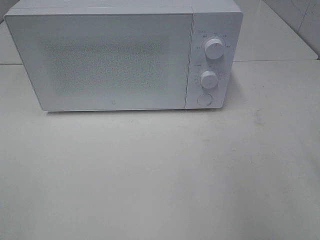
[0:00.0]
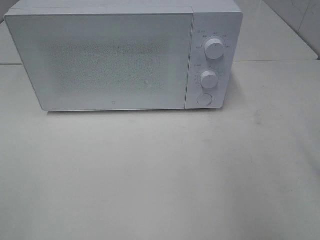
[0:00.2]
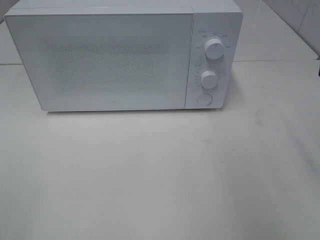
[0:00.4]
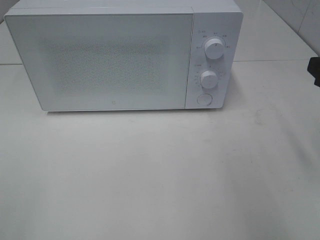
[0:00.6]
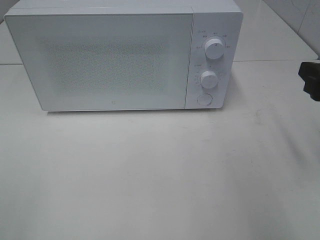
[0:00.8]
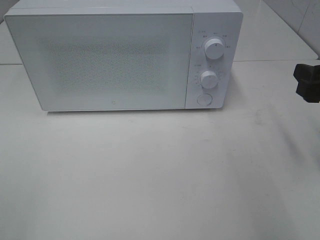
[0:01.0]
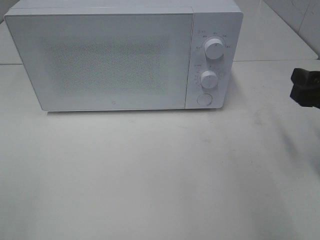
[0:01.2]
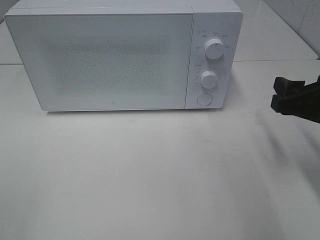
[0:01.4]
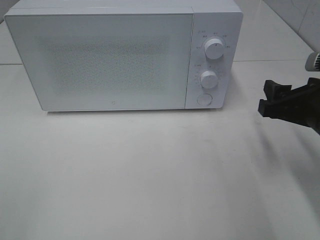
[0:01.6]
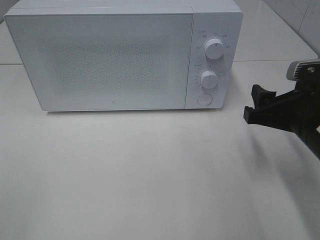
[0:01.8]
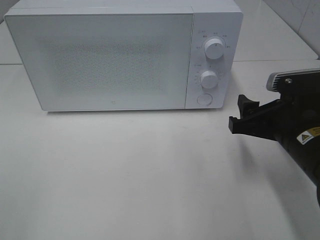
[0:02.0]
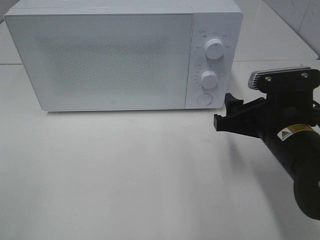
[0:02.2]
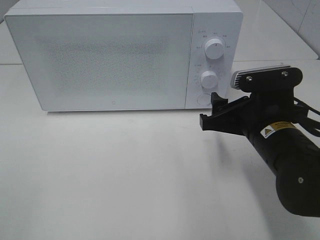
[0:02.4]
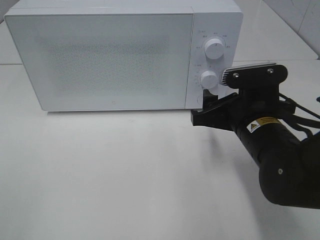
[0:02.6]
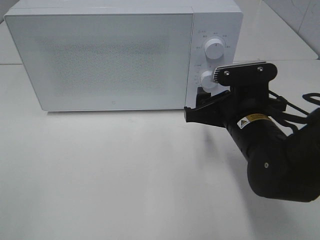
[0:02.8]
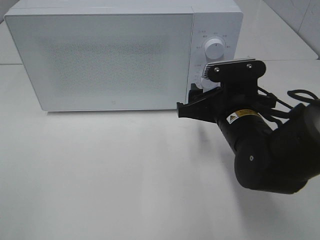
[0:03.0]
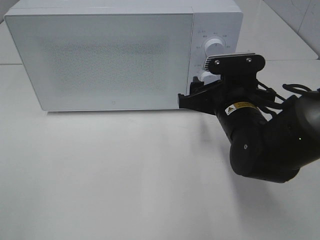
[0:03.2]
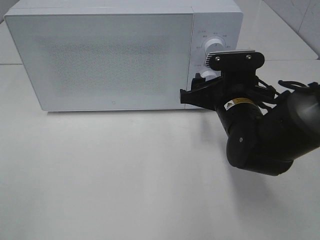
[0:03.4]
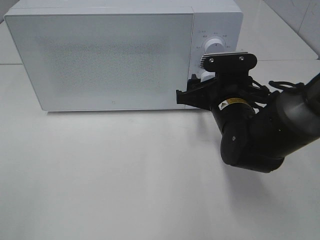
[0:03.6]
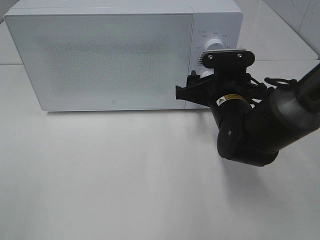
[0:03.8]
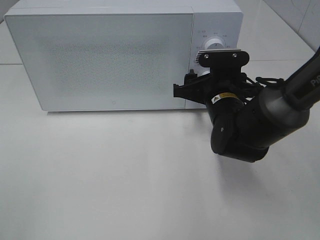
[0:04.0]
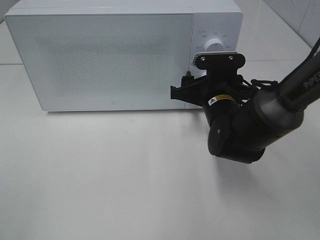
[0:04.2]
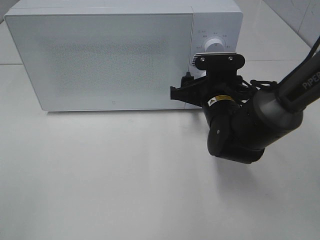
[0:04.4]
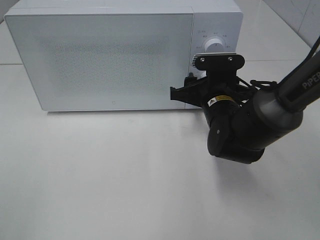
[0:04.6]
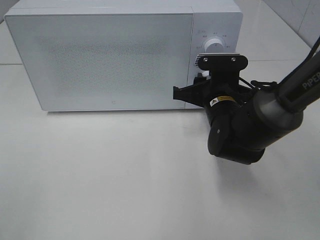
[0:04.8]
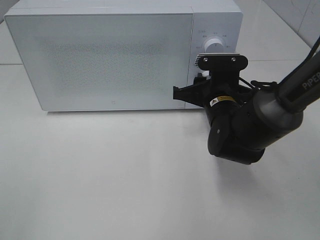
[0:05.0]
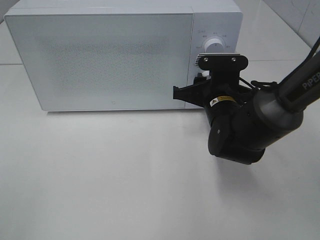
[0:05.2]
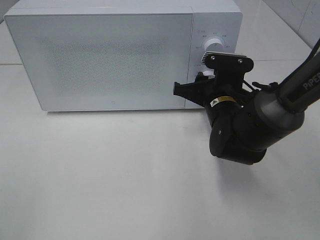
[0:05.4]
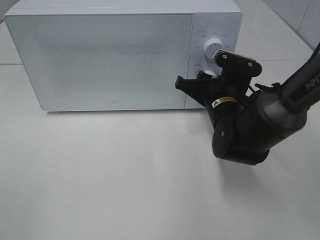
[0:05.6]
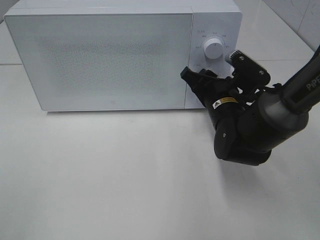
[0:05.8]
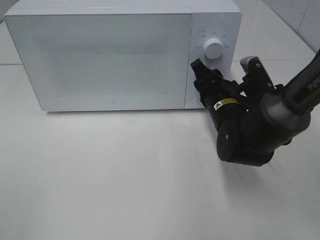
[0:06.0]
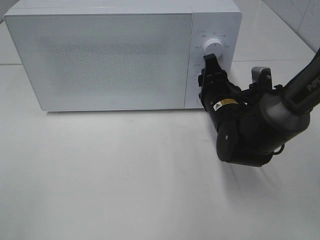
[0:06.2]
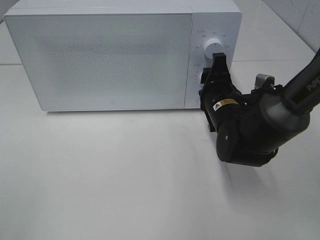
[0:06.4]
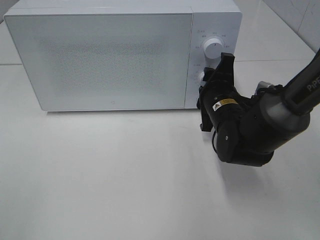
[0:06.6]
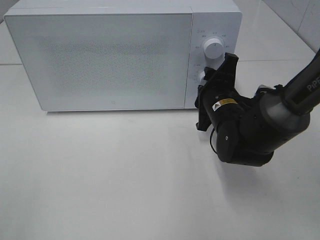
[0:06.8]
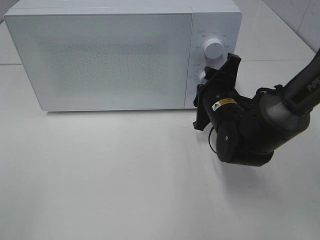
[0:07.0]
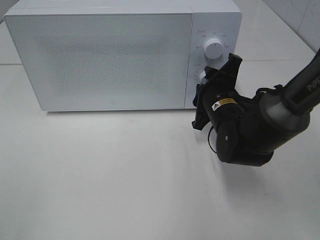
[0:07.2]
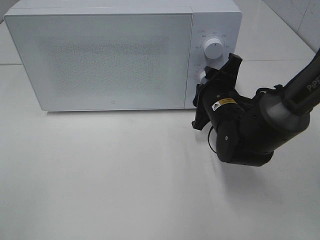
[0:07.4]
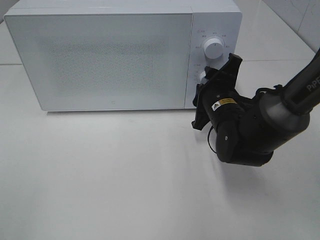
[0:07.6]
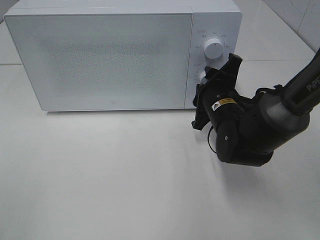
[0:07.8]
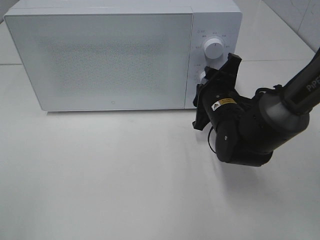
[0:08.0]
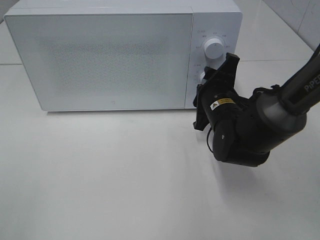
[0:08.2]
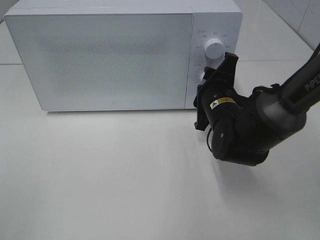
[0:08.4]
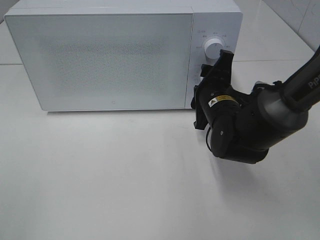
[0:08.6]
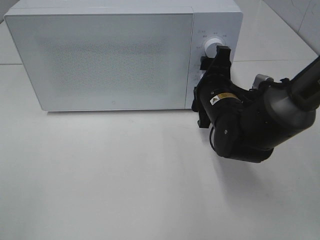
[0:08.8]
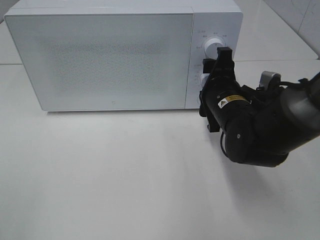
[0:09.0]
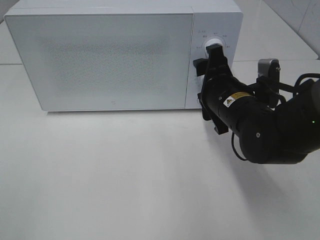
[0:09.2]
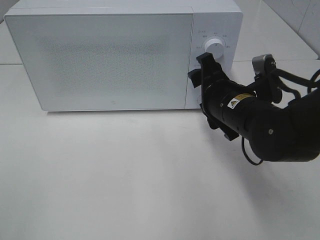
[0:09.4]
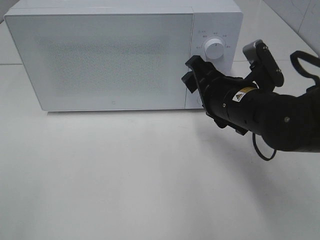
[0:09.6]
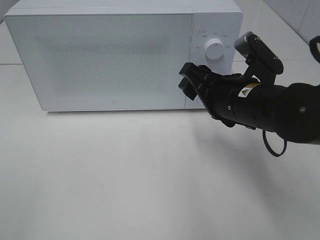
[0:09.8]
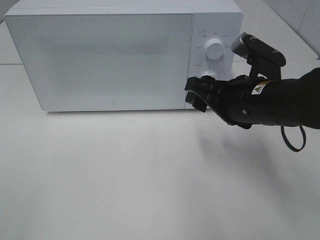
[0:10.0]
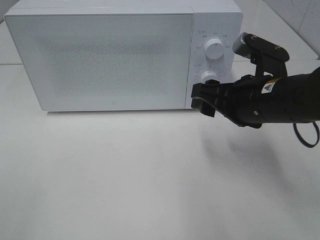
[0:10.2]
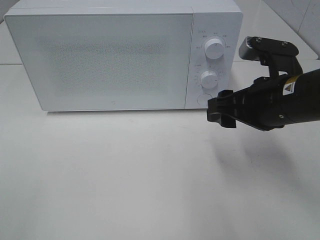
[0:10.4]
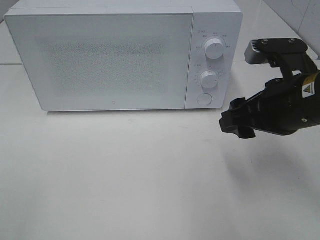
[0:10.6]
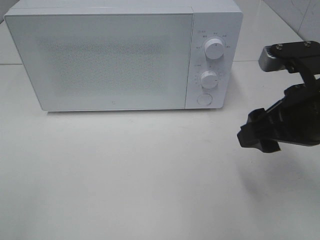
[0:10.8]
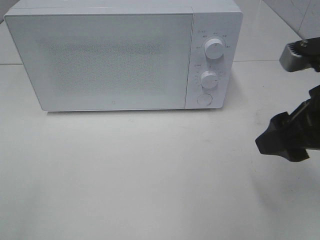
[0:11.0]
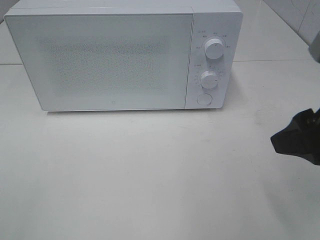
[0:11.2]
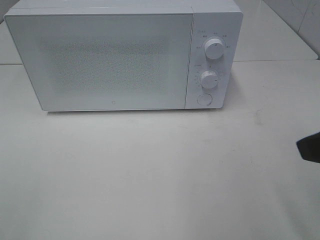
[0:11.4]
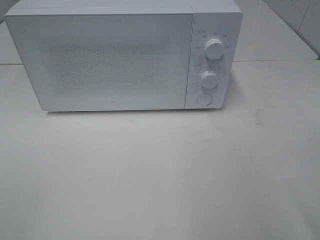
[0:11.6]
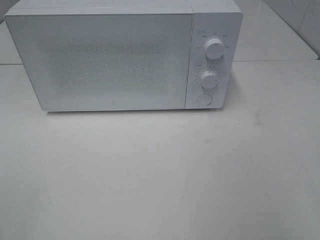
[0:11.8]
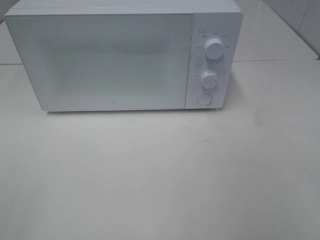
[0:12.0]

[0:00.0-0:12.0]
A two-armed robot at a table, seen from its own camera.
Task of the whole recording: Heat the burger.
Step, 0:00.0 to 0:09.0: Right hand: twist timer button.
0:00.0 to 0:01.6: The right gripper shifts about 15 cm downward and forward.
0:01.6 to 0:03.0: The right gripper travels to the left by about 10 cm.
0:03.0 to 0:04.4: The right gripper travels forward by approximately 5 cm.
0:09.0 to 0:10.4: The right gripper is displaced upward and backward by approximately 10 cm.
0:10.4 to 0:12.0: The right gripper goes roughly 25 cm backward, to the right and upward.

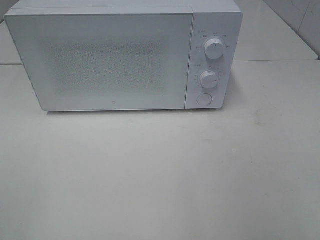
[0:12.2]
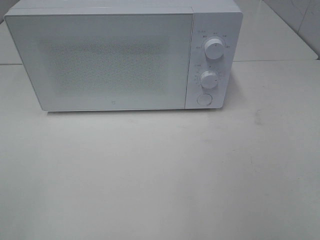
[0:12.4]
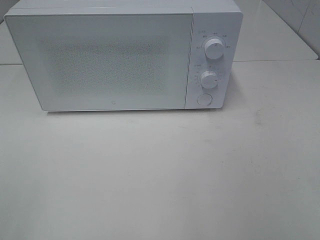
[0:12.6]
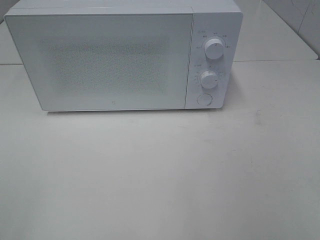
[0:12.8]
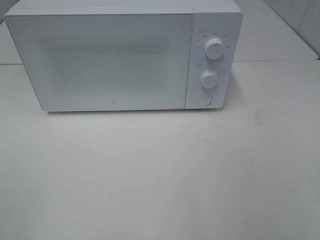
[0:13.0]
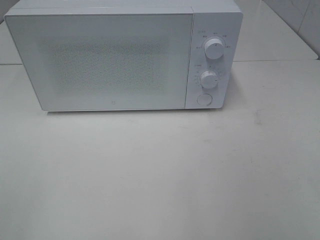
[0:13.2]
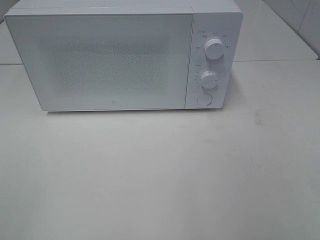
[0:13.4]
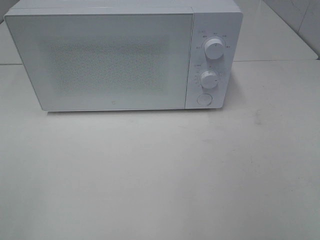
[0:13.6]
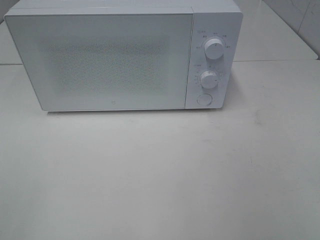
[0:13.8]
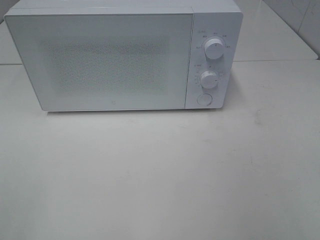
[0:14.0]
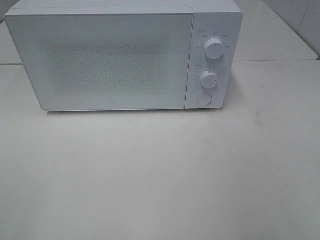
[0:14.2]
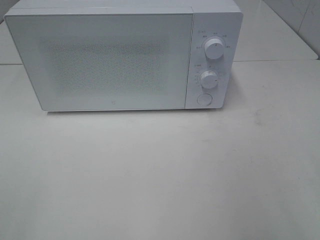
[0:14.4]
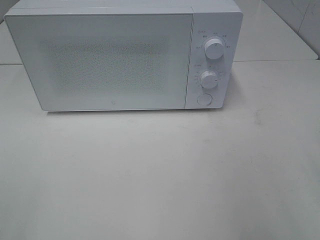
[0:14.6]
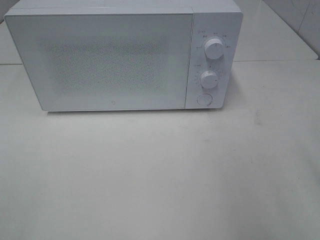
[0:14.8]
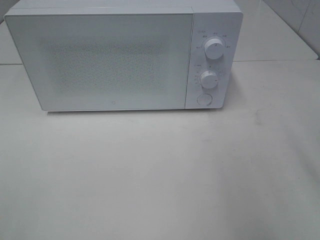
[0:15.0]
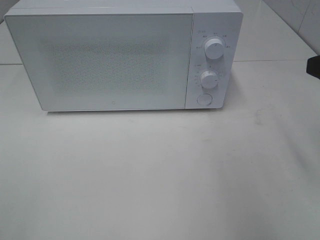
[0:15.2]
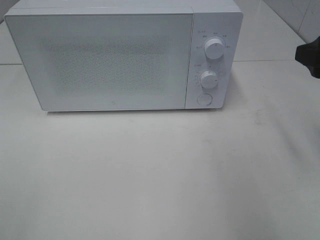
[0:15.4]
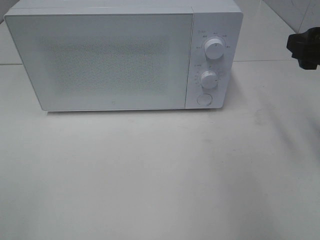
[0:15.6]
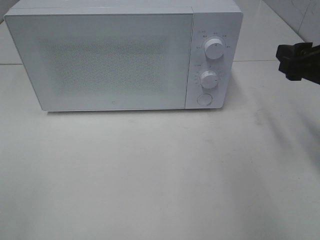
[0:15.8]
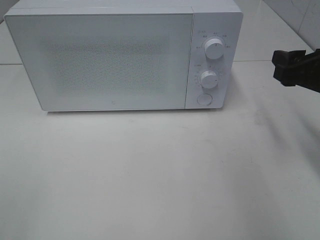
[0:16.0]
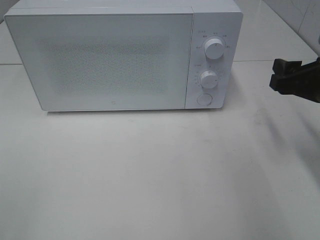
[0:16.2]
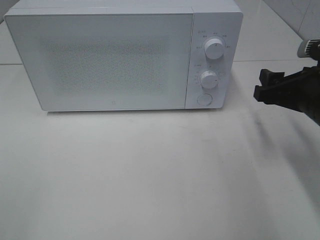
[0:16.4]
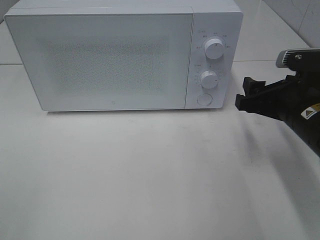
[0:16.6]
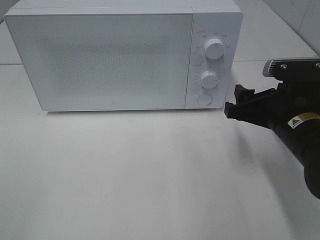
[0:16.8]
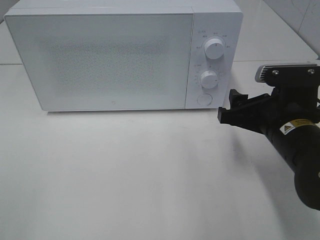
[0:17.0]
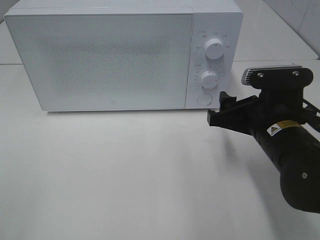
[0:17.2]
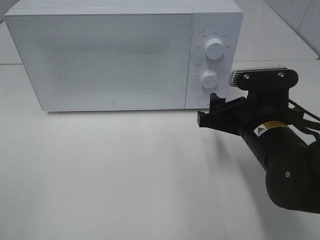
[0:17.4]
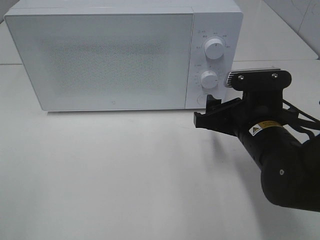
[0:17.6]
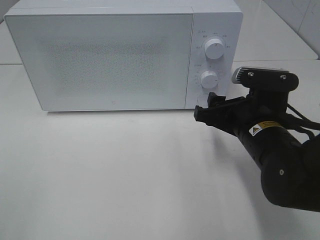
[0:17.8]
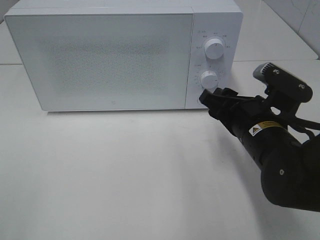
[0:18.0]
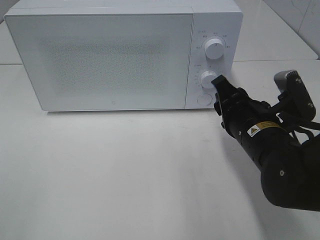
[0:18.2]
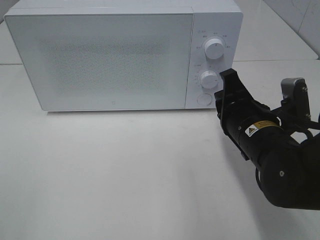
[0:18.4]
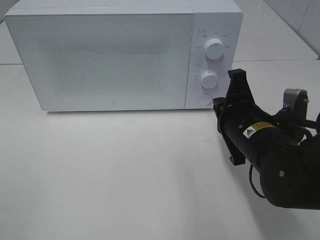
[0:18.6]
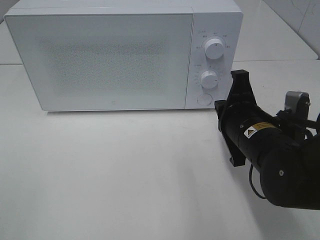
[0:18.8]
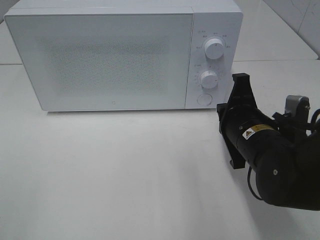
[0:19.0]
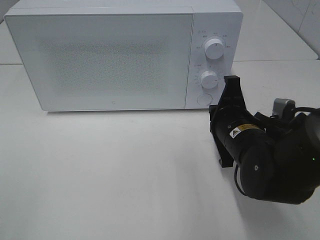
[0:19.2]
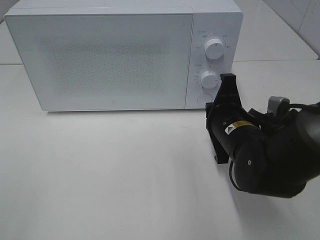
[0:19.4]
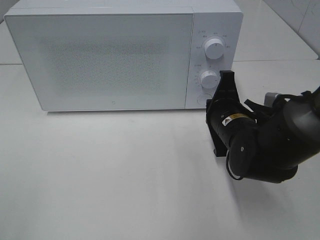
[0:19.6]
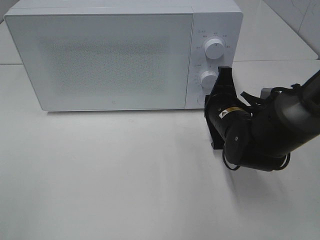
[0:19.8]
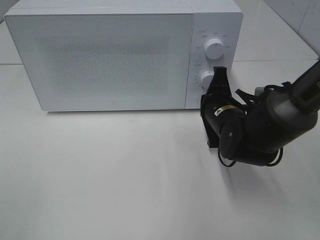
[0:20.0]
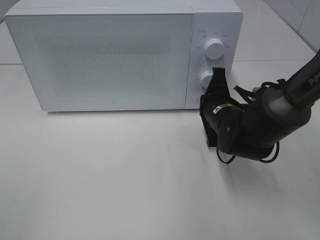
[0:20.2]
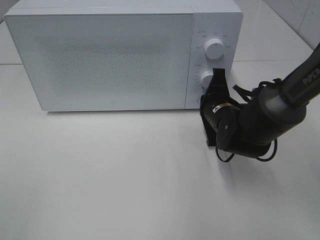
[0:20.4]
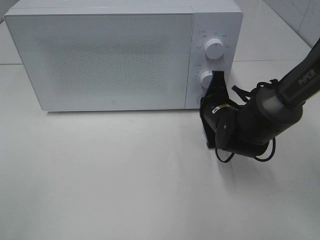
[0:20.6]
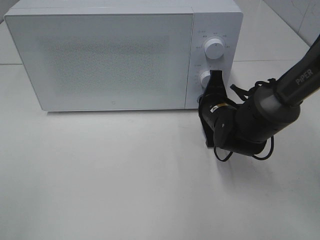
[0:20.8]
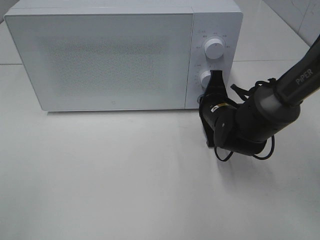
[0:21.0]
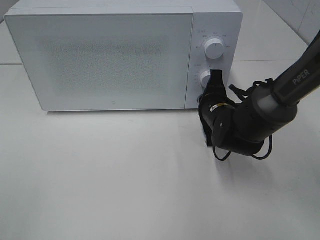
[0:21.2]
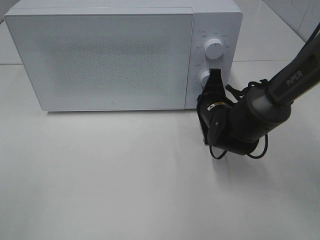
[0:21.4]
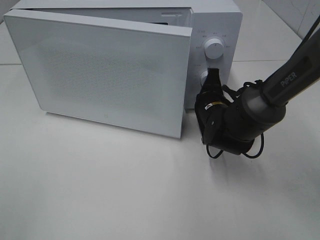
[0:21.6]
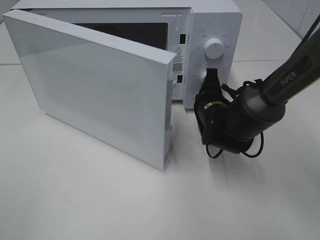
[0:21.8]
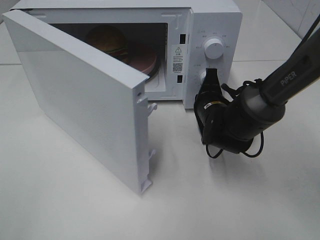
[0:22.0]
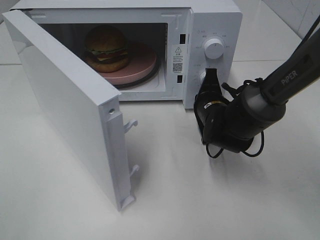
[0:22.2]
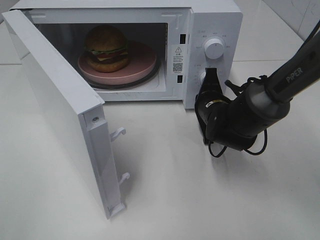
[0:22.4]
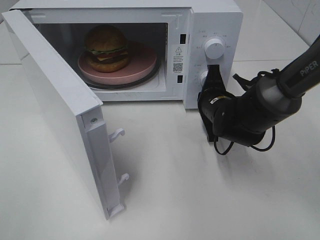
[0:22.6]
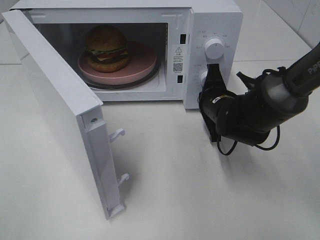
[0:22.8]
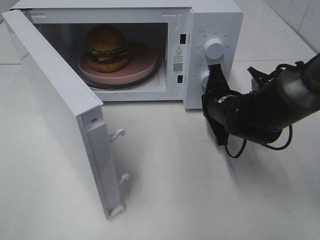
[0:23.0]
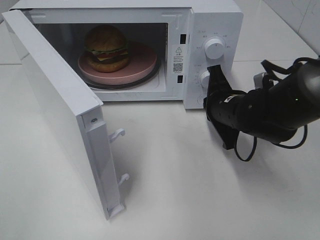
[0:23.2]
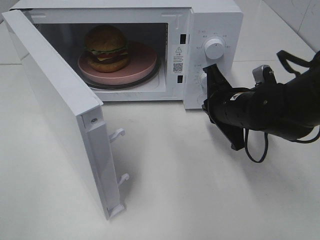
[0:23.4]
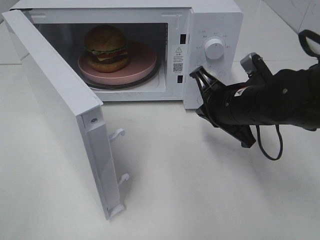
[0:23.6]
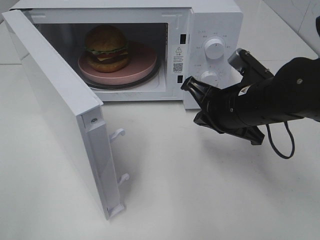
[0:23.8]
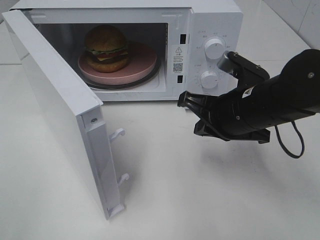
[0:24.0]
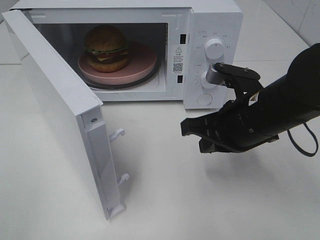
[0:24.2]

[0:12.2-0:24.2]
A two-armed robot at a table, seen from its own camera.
Task of the whole recording: Heat the burger.
Step, 0:12.2 to 0:23.2: Right hand: press the switch.
0:15.2 to 0:16.6: The right gripper shifts some 15 cm downward, to the left and forward.
0:16.6 to 0:18.2: The right gripper shifts about 5 cm to the left, and closes its fingers.
0:18.2 to 0:19.8: The right gripper heads forward, covering roughly 5 cm, and closes its fingers.
0:19.8 to 0:21.2: The right gripper shifts by about 5 cm.
0:22.6 to 0:24.2: The right gripper shifts approximately 15 cm backward and upward.
